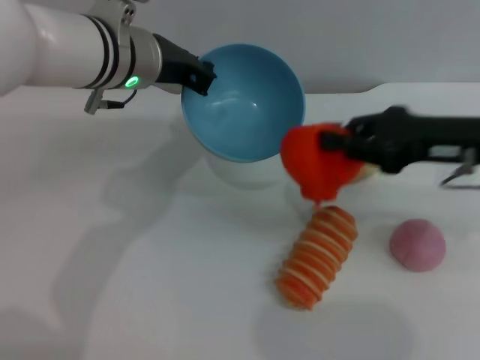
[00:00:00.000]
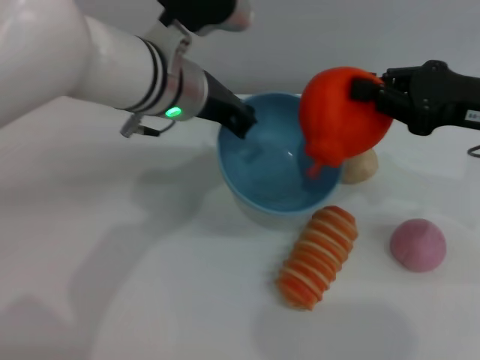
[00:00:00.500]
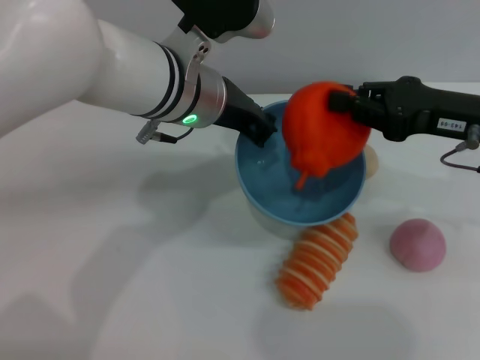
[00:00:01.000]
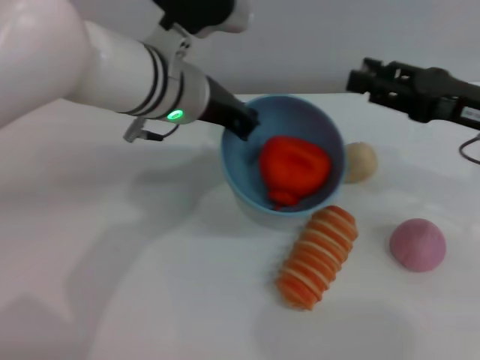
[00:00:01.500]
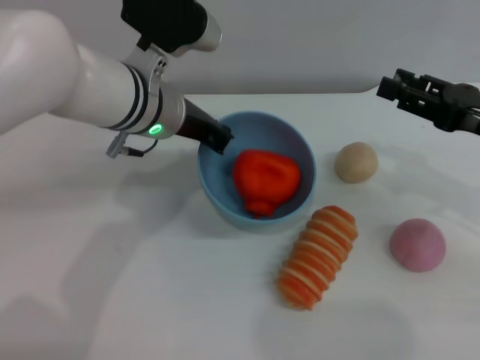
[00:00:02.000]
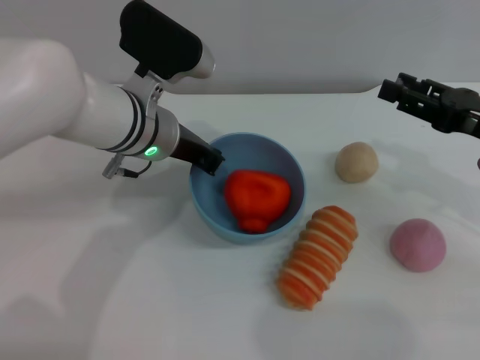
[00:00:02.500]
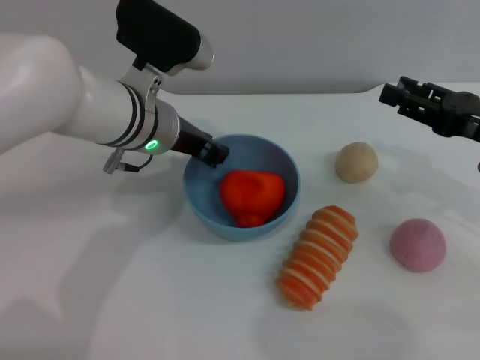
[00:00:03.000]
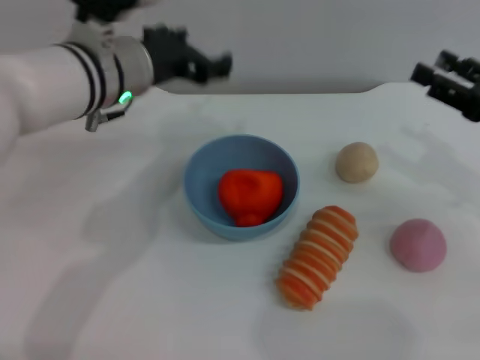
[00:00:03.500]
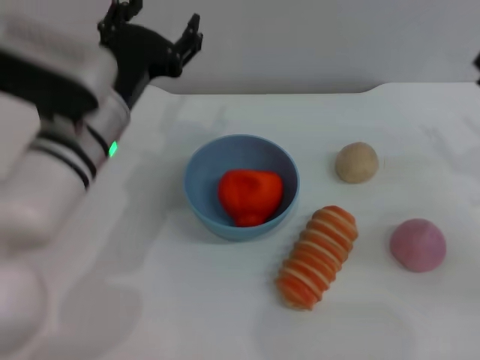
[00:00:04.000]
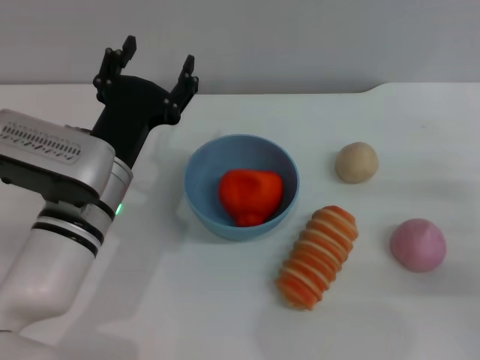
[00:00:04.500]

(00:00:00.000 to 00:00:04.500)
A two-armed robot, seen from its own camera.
Task of the whole recording: put the orange into the blue bowl and pour it out repeatedly.
Step, 00:00:00.000 - 00:00:01.000: Place the orange into the bowl.
Step, 00:00:02.000 - 00:00:03.500: Place the bowl on the table.
00:00:00.000 - 00:00:02.000: The right gripper changes place by roughly 5 cm, and opens its fingers.
00:00:02.000 - 00:00:04.500: The right gripper moves downward and backward, approximately 10 cm. The left gripper heads backward and downward, covering approximately 10 cm, and opens.
